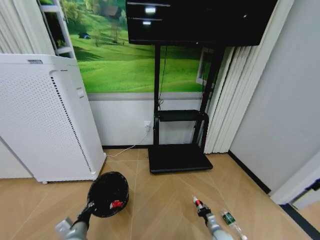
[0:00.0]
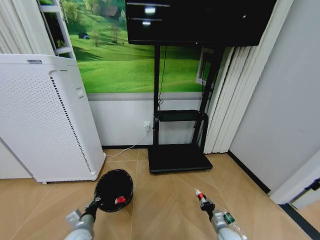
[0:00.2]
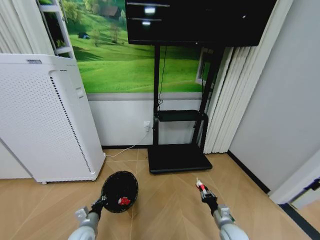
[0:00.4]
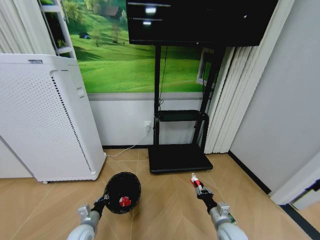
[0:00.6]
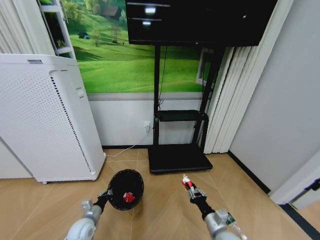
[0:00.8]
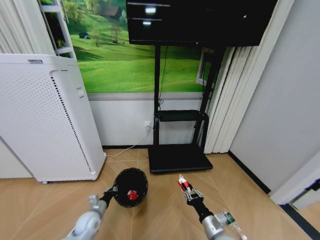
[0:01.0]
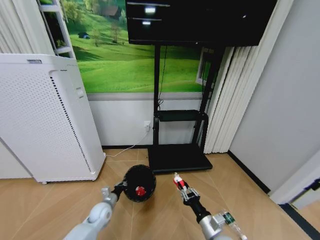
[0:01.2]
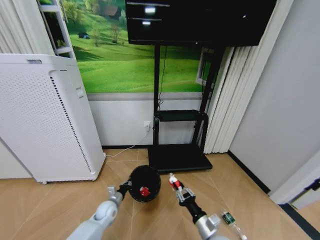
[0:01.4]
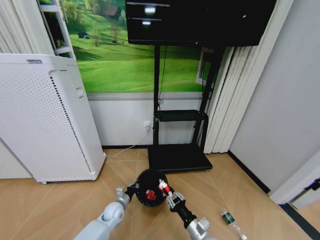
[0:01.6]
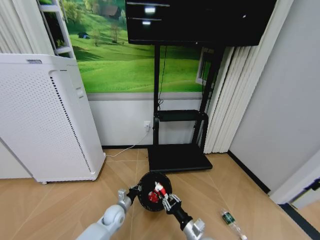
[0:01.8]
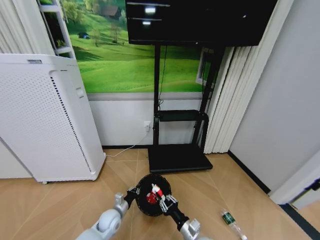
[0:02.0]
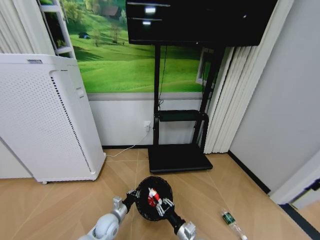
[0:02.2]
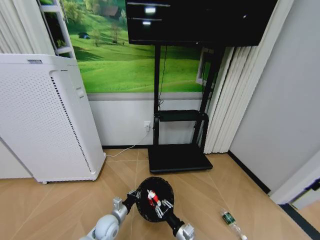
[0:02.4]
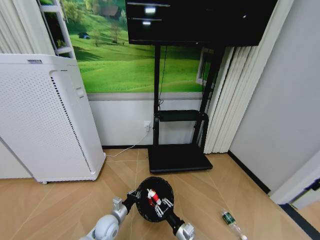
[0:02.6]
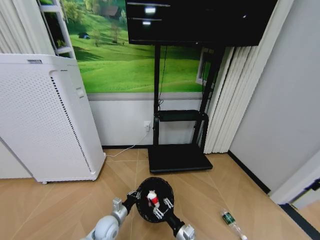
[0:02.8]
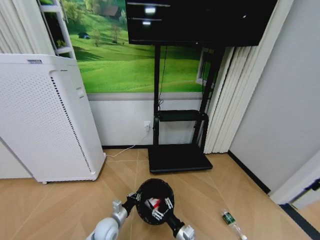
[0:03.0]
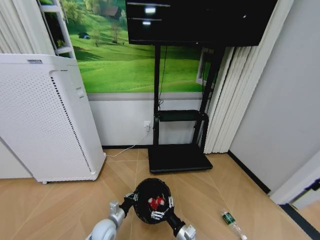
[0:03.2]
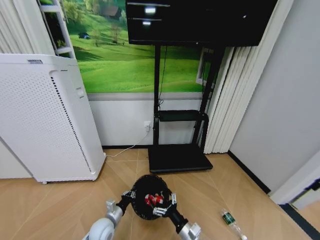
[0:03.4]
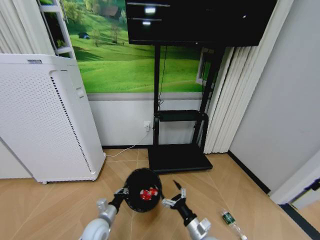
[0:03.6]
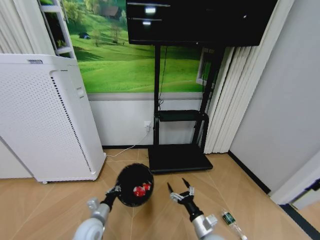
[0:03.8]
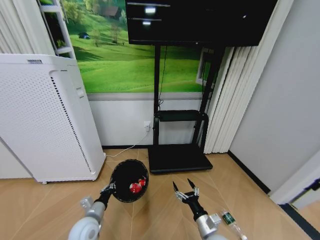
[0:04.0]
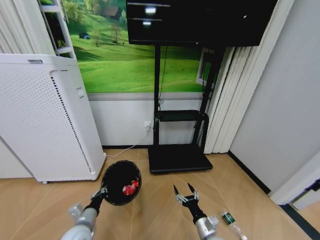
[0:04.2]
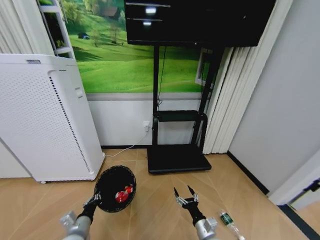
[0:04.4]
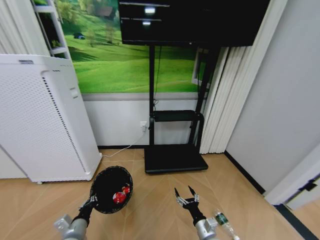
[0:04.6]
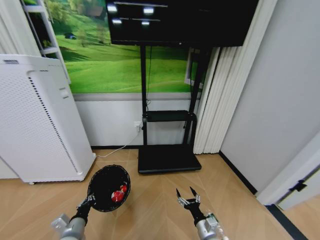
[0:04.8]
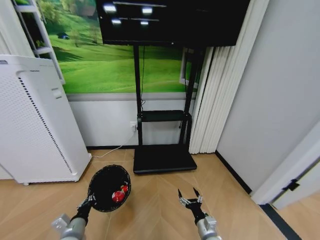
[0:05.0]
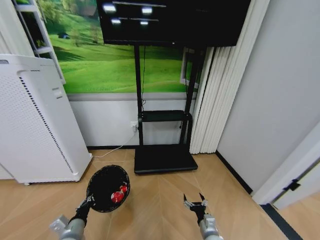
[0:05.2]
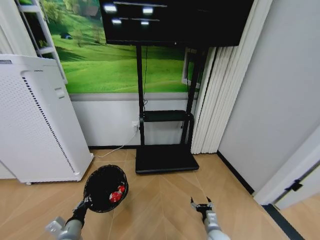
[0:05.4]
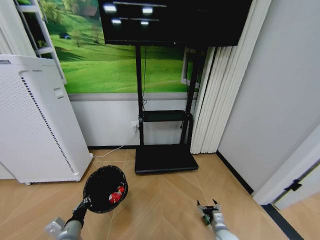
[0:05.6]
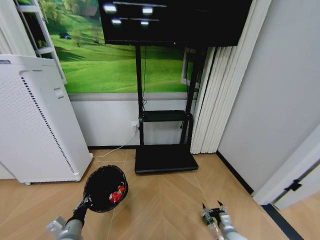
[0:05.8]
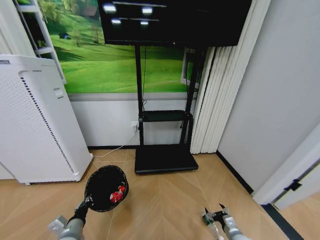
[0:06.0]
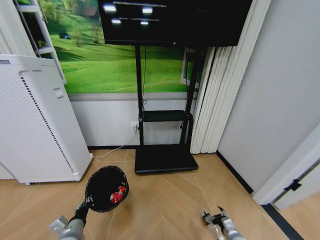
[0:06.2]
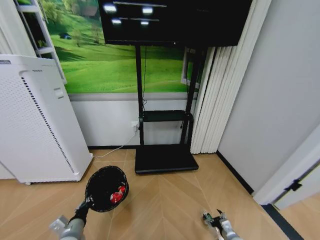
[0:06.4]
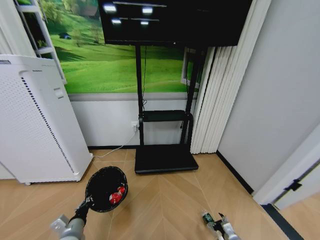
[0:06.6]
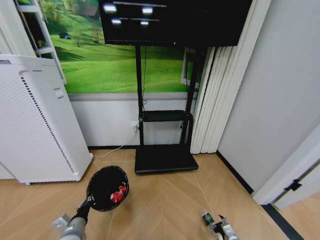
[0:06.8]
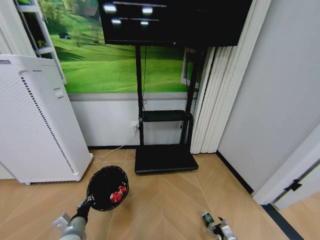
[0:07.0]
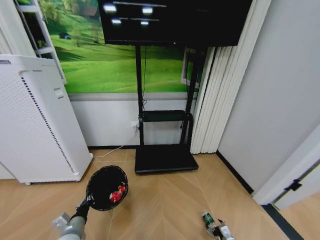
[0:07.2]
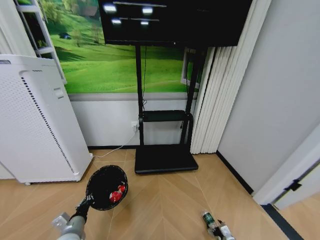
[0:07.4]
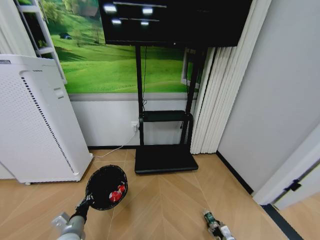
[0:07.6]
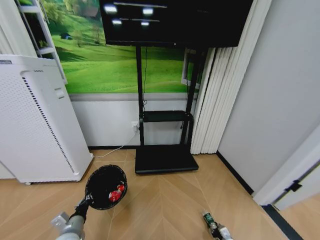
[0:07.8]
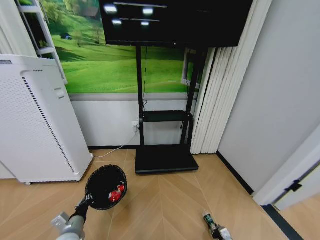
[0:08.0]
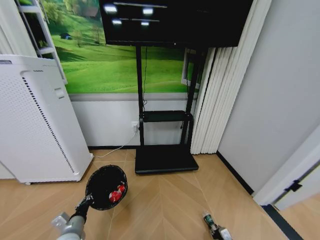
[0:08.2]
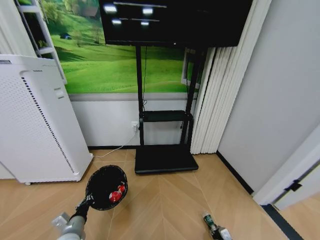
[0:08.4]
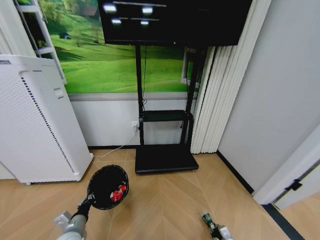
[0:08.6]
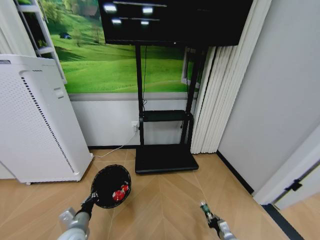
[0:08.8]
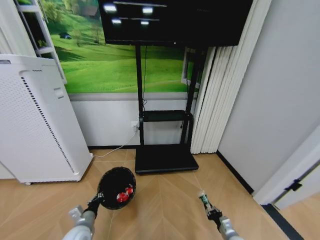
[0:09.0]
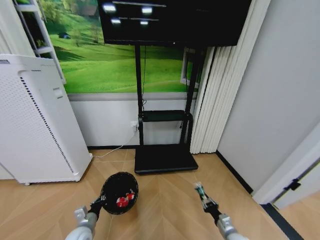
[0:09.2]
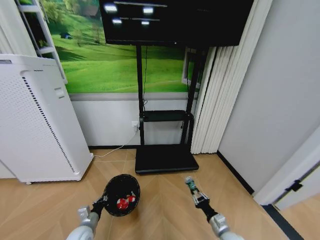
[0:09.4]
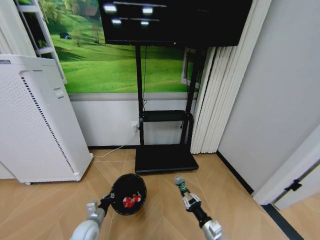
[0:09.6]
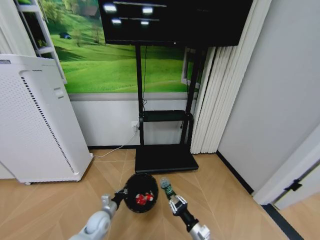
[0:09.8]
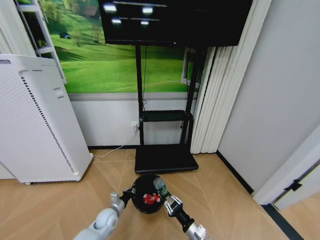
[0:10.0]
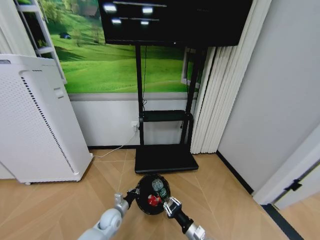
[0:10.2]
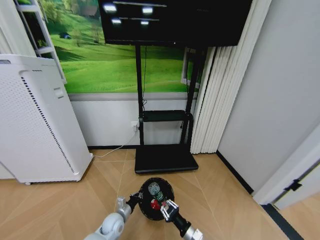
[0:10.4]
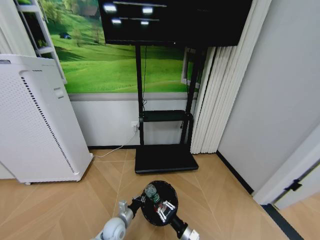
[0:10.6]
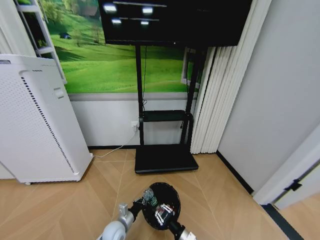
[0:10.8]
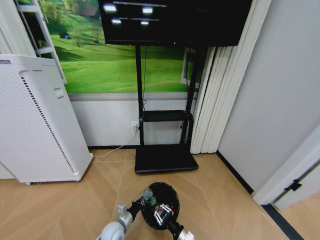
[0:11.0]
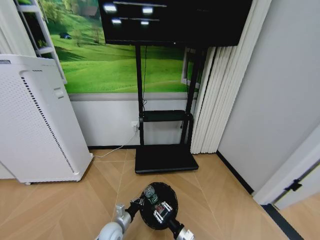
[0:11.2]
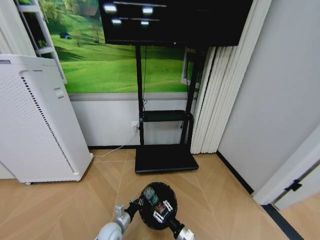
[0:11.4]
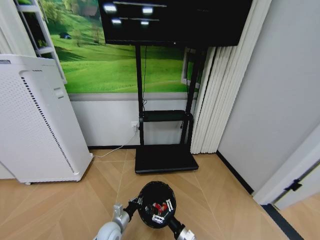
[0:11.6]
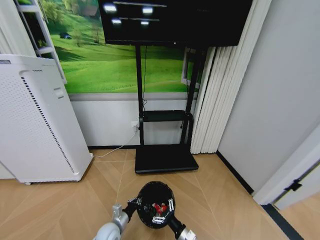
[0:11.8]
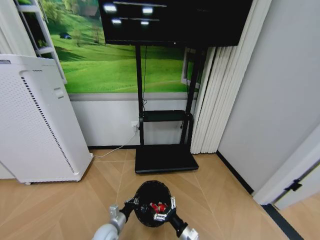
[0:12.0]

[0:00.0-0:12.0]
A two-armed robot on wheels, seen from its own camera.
Task of the whole recording: Pick up the trash bin and place the garbage on the floor into it.
0:00.0 to 0:01.6: The right gripper moves upward and to the left, some 25 cm. The left gripper shifts approximately 20 cm forward, to the right and downward.
0:01.6 to 0:03.0: The left gripper heads backward, covering about 10 cm. The right gripper ends up about 5 cm from where it was, and opens up.
0:03.0 to 0:04.4: The right gripper travels to the right by some 5 cm, while the left gripper moves upward, to the left and backward, roughly 15 cm.
0:04.4 to 0:06.0: The right gripper heads to the right and downward, covering roughly 15 cm.
0:06.0 to 0:07.6: The right gripper goes roughly 10 cm downward.
0:07.6 to 0:09.0: The right gripper heads upward, covering some 10 cm, and closes its fingers.
0:09.0 to 0:10.4: The left gripper heads to the right, downward and forward, covering approximately 15 cm, while the right gripper travels to the left by approximately 15 cm.
0:10.4 to 0:12.0: The right gripper opens. Meanwhile the left gripper changes place by approximately 5 cm.

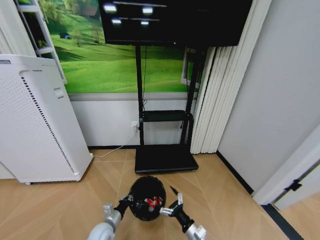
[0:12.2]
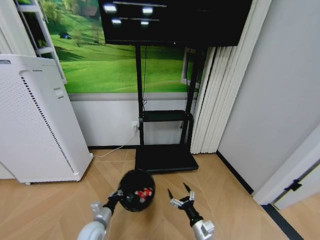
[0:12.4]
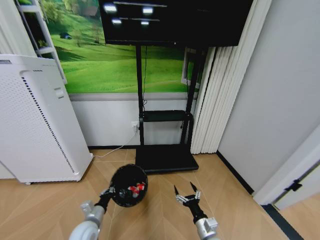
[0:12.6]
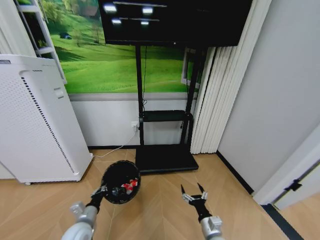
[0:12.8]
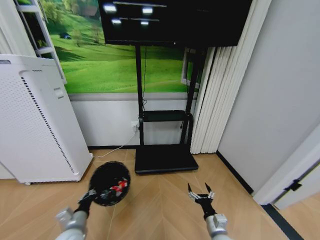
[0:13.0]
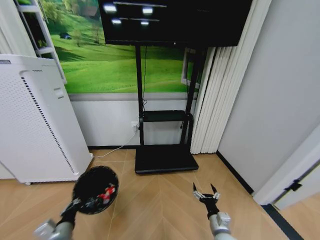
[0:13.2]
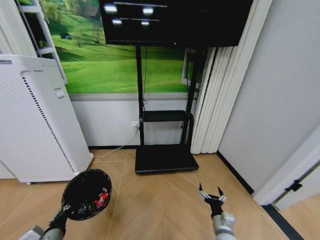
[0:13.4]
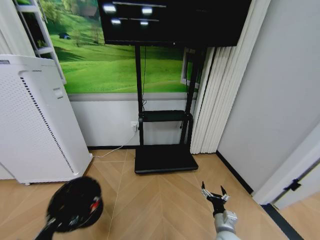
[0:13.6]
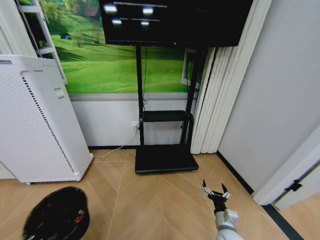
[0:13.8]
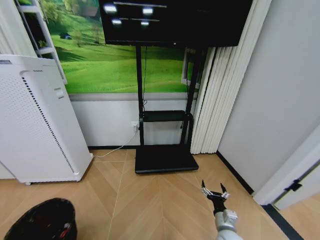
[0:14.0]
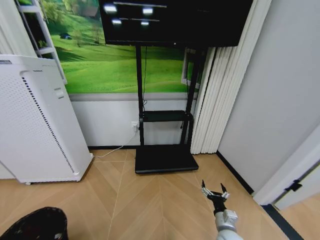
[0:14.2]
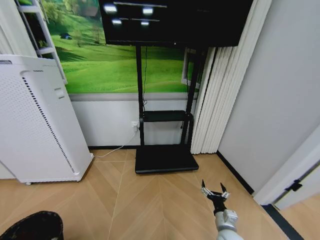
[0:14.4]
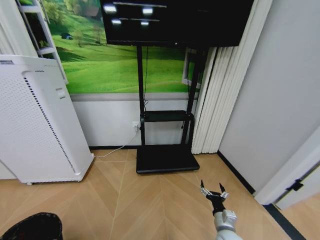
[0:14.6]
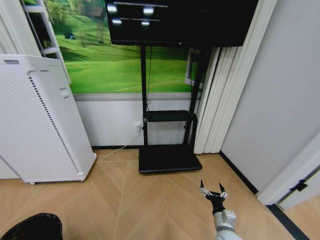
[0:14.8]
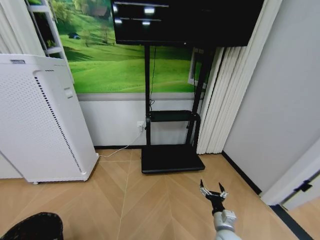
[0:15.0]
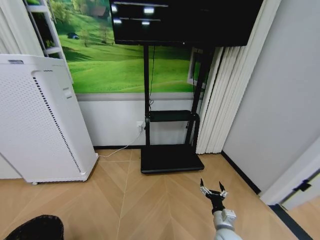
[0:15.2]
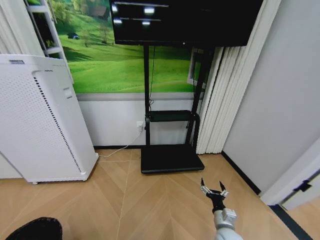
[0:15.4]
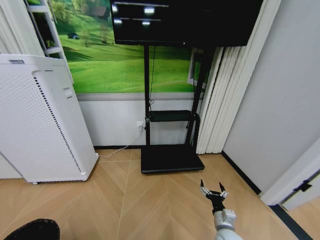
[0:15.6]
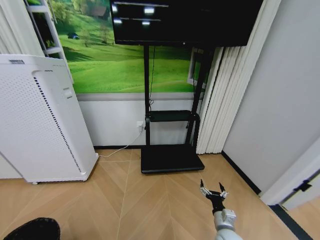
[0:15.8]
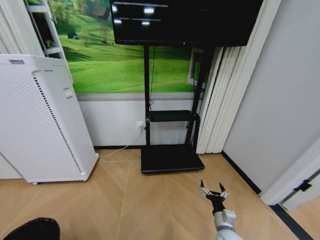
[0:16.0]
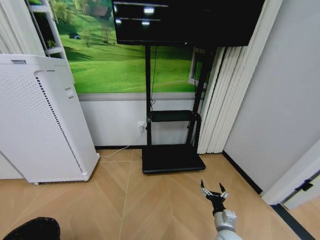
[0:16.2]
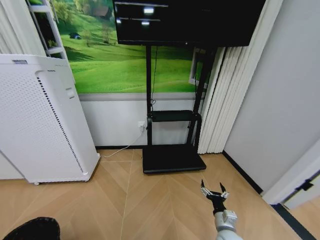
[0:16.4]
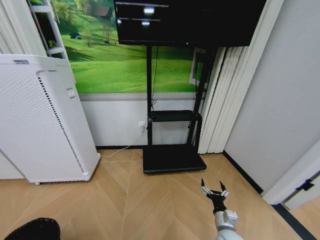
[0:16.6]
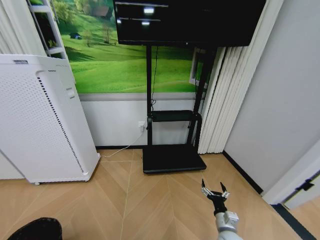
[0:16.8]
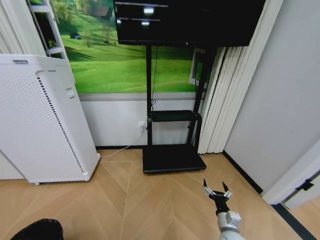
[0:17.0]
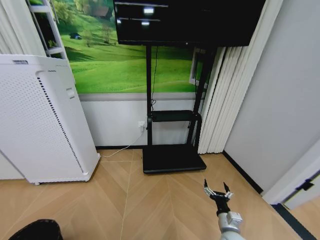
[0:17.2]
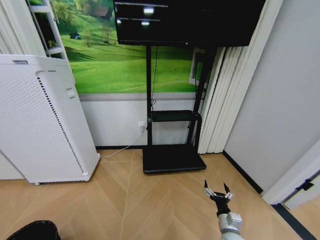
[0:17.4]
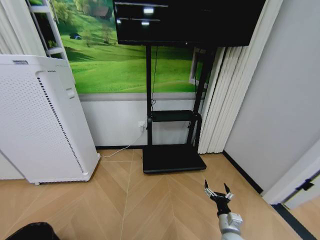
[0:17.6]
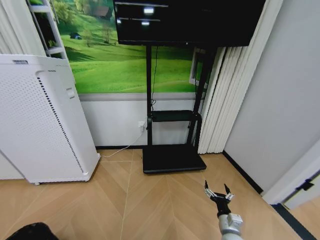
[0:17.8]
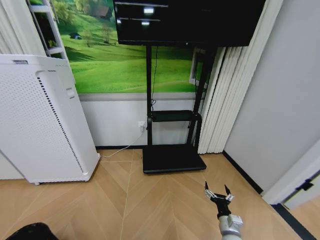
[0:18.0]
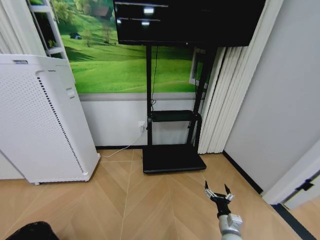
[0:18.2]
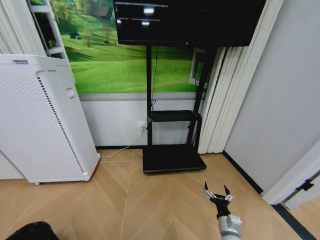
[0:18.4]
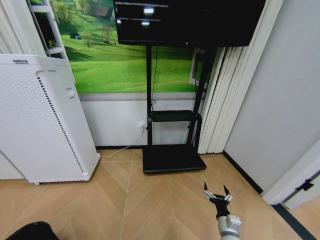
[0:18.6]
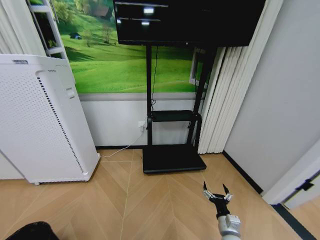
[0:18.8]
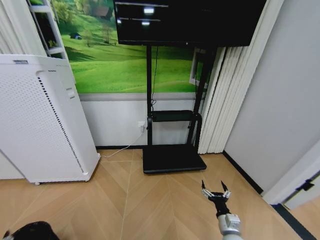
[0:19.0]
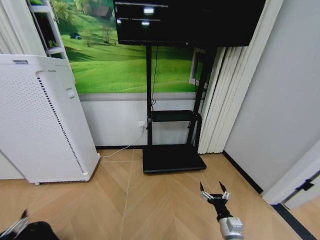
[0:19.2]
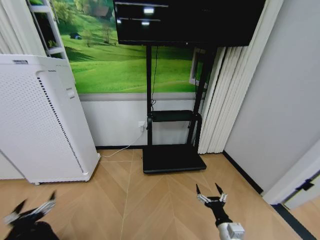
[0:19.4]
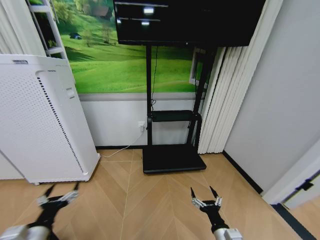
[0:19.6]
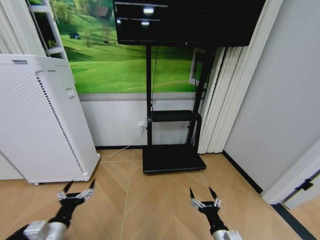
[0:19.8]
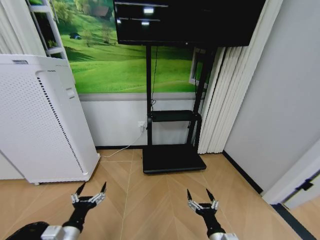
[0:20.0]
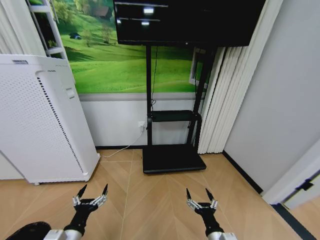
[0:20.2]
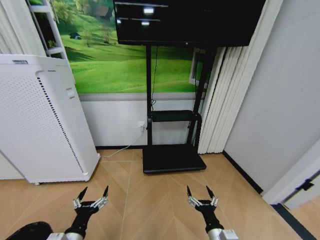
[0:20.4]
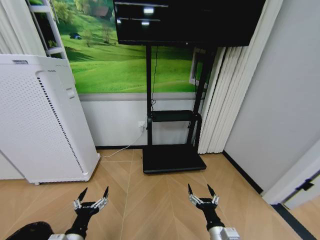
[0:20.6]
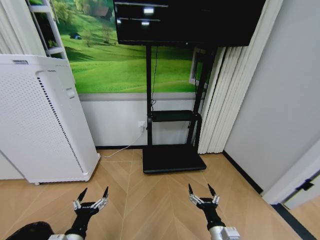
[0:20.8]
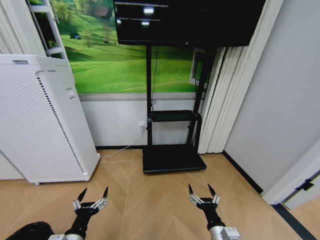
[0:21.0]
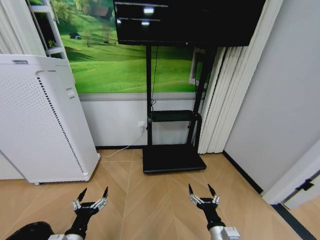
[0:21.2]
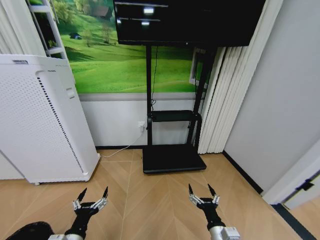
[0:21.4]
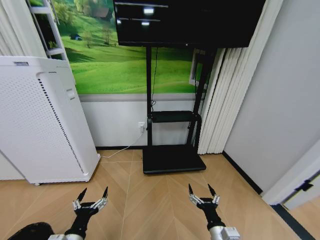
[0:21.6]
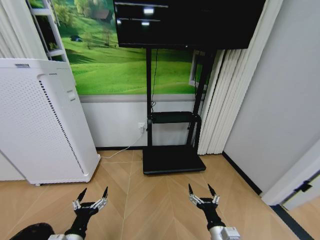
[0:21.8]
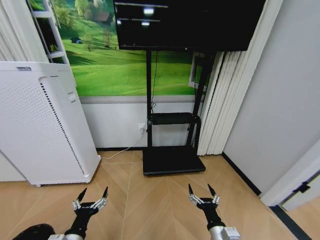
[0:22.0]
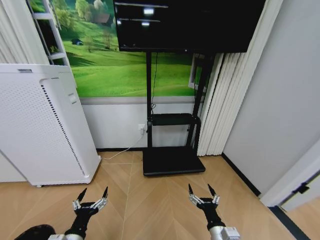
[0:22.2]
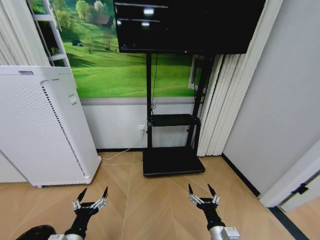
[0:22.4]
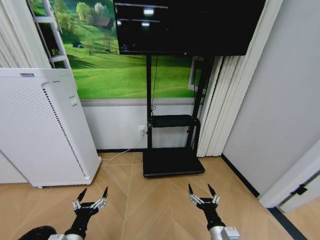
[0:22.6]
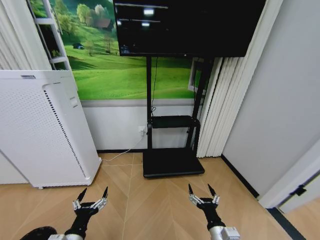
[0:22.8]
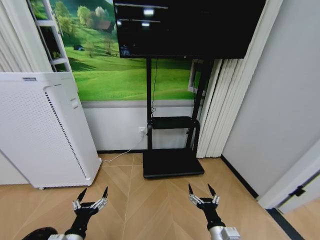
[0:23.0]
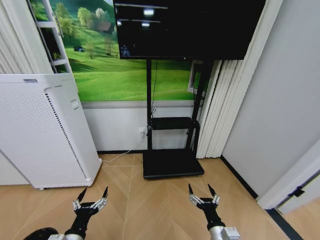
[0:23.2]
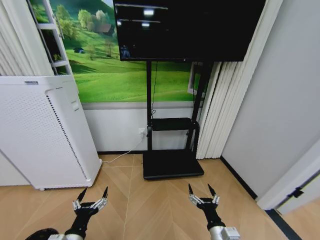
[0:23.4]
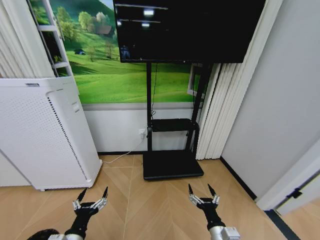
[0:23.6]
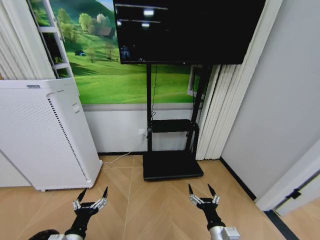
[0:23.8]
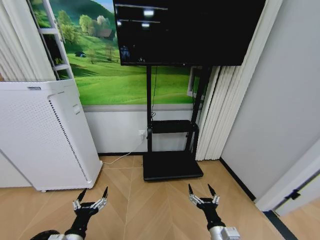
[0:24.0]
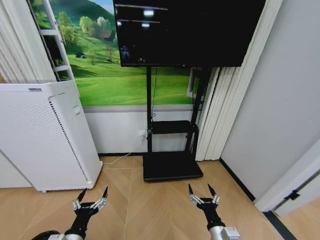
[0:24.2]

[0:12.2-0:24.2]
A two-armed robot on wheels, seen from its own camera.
Task of the whole recording: Pick up the trash bin and place the garbage on the floor into it.
0:12.2 to 0:13.8: The left gripper is displaced backward, upward and to the left by about 25 cm; the right gripper is displaced to the right by approximately 10 cm.
0:13.8 to 0:15.2: The left gripper shifts about 10 cm downward, to the left and backward.
0:15.2 to 0:16.6: The grippers stay close to where they were, moving slightly.
0:16.6 to 0:18.2: The left gripper shifts by some 5 cm, and opens up.
0:18.2 to 0:19.8: The right gripper travels backward, upward and to the left by roughly 10 cm, while the left gripper goes approximately 20 cm to the right, upward and forward.
0:19.8 to 0:21.2: The left gripper shifts by some 5 cm.
0:21.2 to 0:24.2: Neither gripper changes place.
